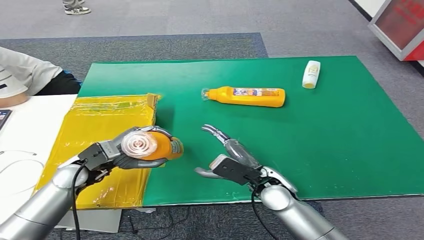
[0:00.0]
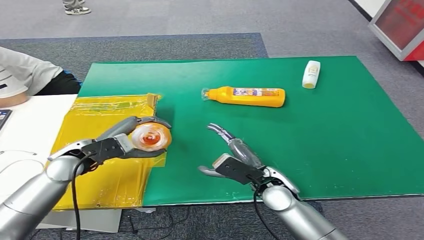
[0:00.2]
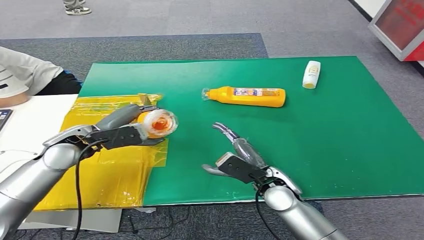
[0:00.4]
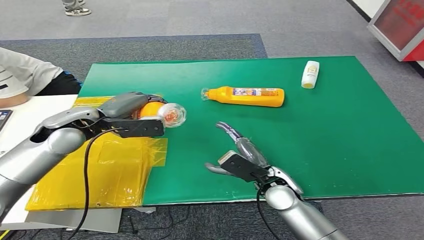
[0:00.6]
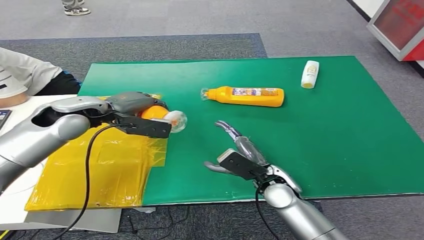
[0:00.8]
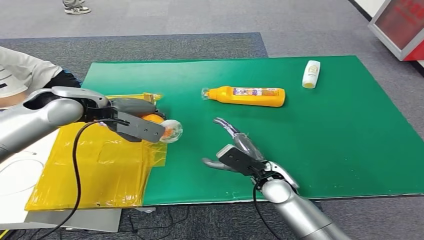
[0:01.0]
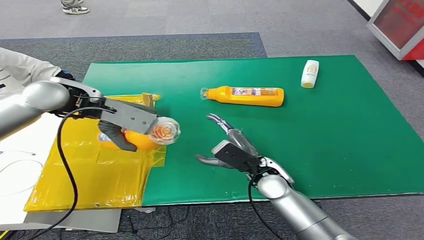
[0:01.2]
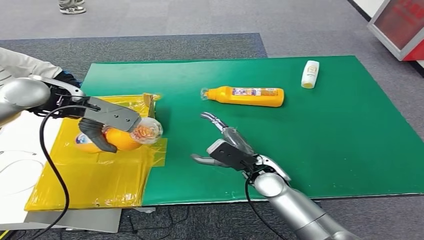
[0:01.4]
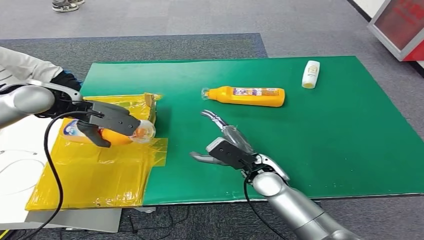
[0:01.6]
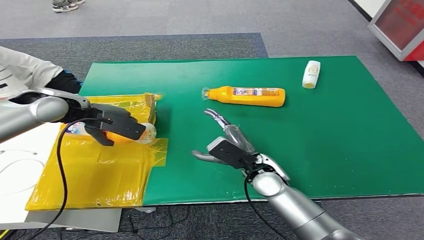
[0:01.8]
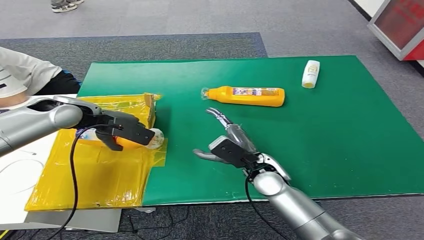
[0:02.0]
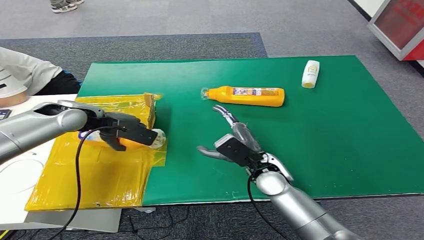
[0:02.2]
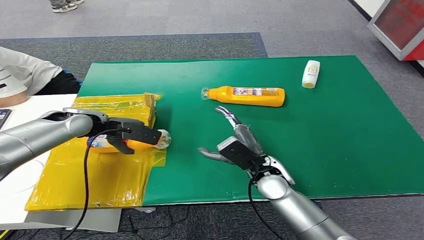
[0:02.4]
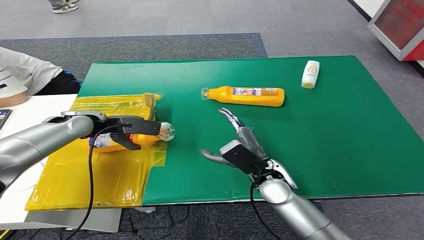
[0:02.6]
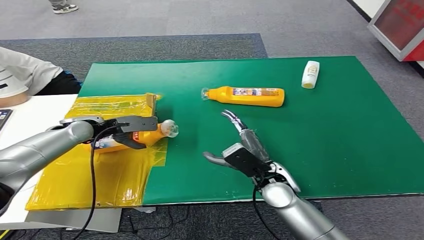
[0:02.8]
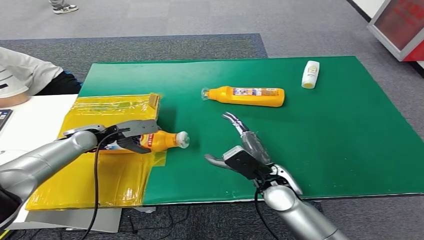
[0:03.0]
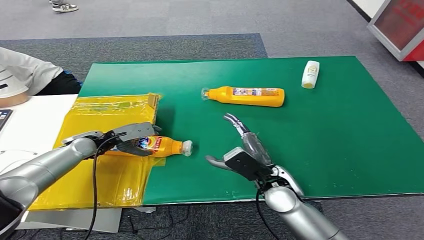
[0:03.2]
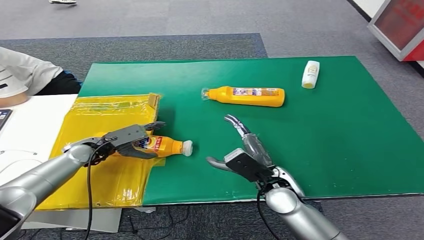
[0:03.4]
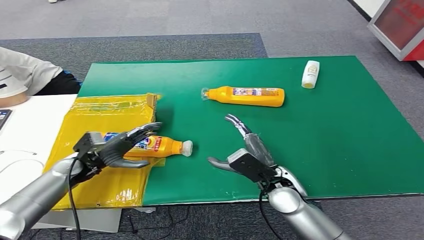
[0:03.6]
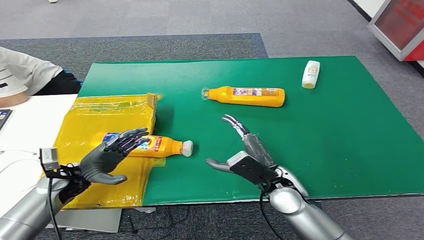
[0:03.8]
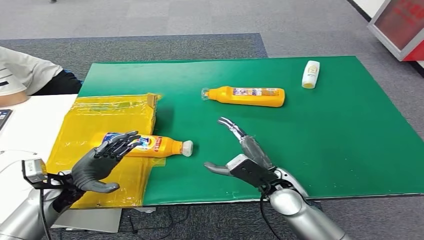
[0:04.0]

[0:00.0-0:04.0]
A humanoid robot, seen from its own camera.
Step, 0:00.0 to 0:04.0: Turn the bottle to the front side.
0:00.0 to 0:01.4: The left hand goes some 20 cm upward and forward.
0:01.4 to 0:02.6: The left hand goes roughly 15 cm downward.
0:02.6 to 0:04.0: The left hand travels backward and downward by about 20 cm.
